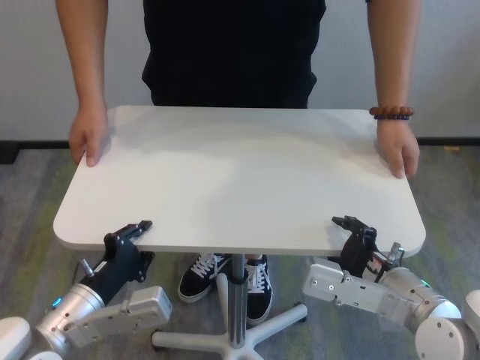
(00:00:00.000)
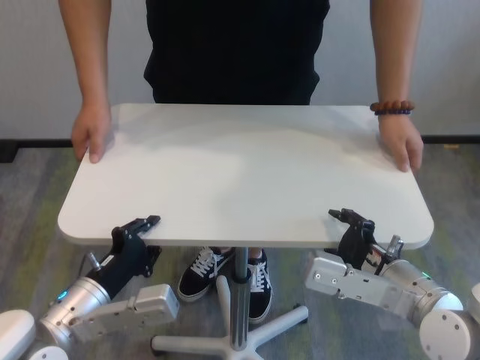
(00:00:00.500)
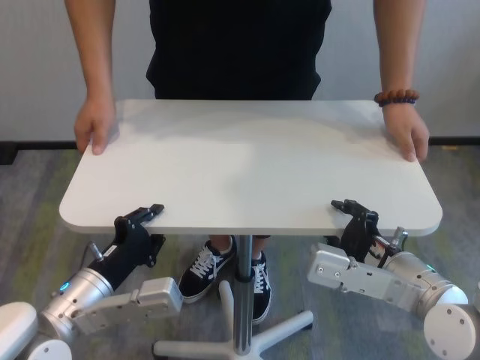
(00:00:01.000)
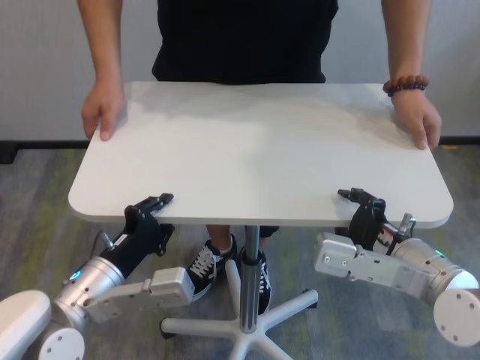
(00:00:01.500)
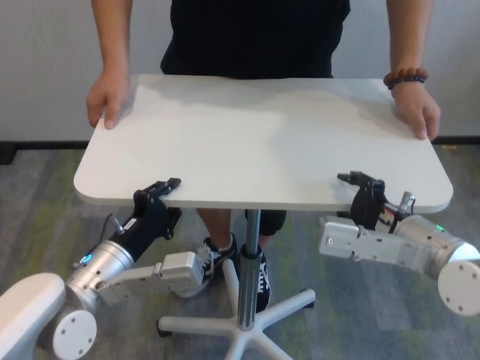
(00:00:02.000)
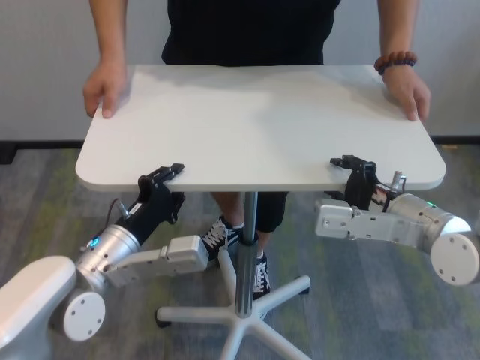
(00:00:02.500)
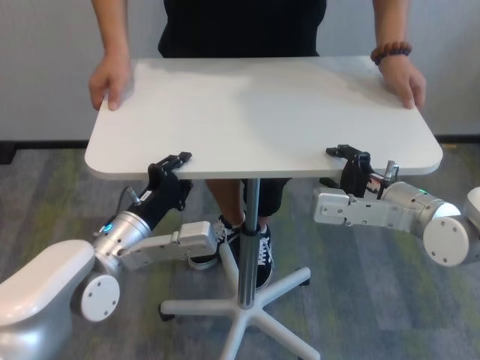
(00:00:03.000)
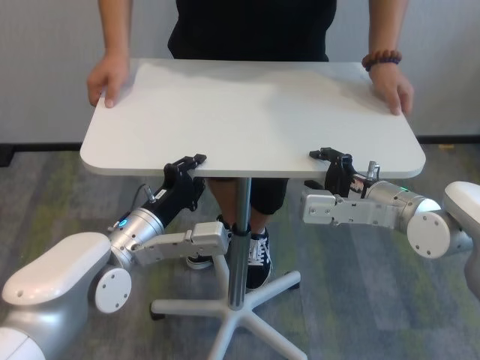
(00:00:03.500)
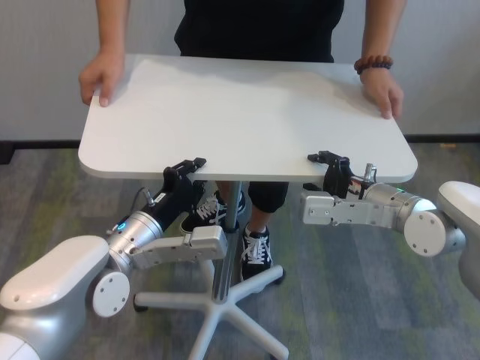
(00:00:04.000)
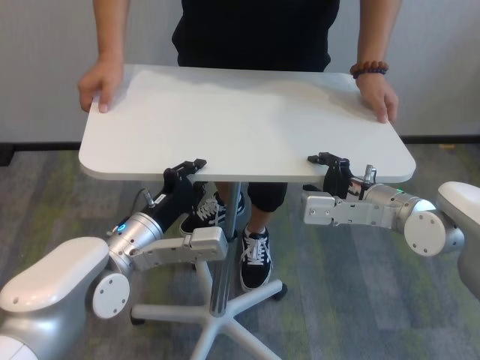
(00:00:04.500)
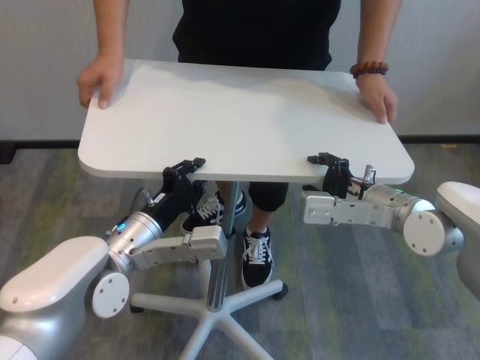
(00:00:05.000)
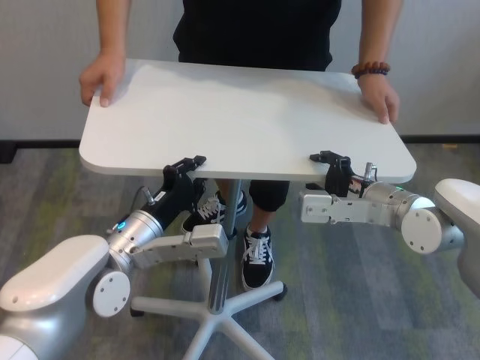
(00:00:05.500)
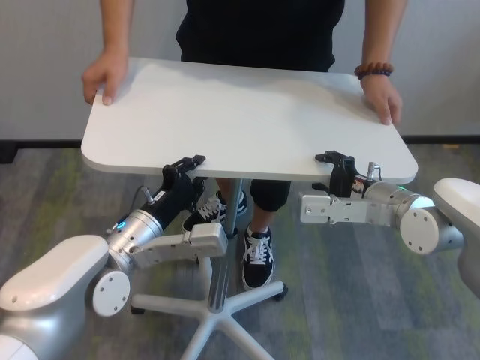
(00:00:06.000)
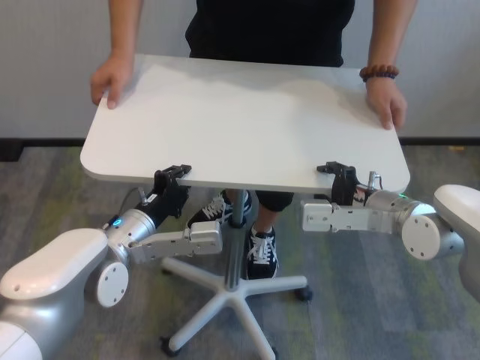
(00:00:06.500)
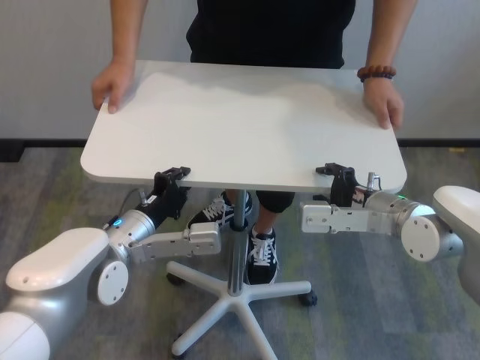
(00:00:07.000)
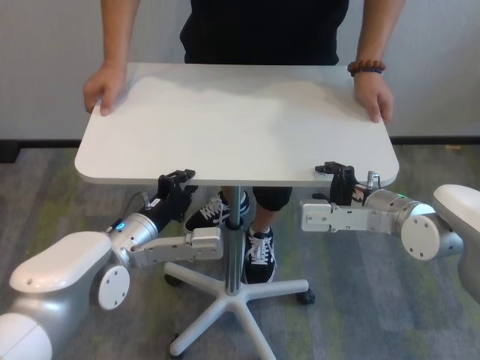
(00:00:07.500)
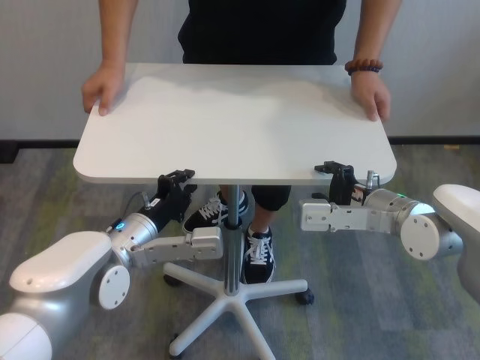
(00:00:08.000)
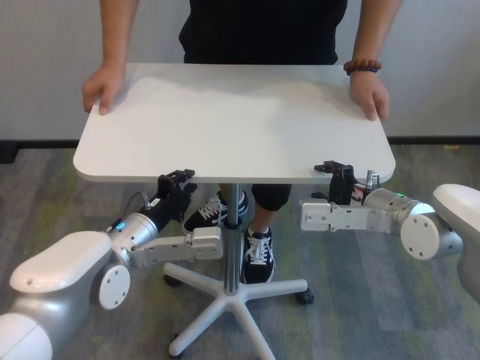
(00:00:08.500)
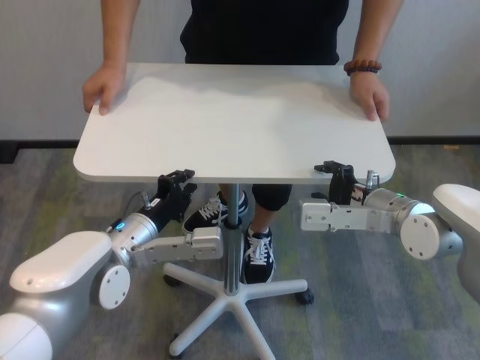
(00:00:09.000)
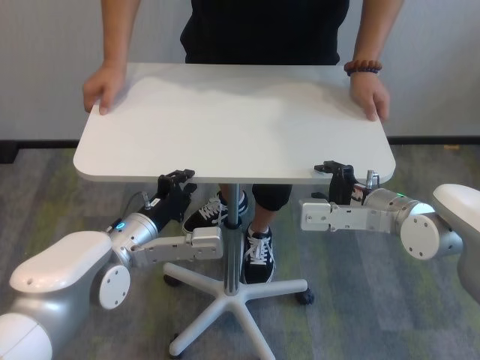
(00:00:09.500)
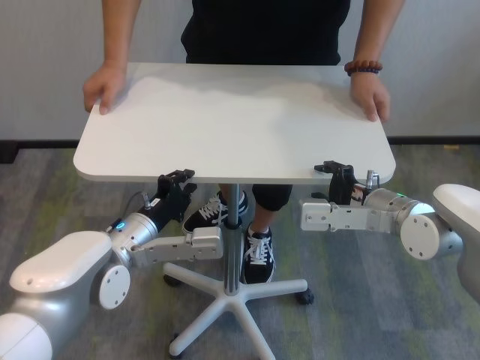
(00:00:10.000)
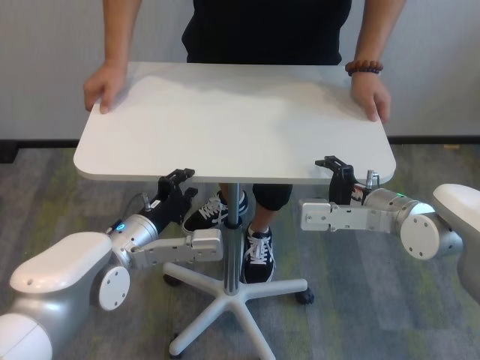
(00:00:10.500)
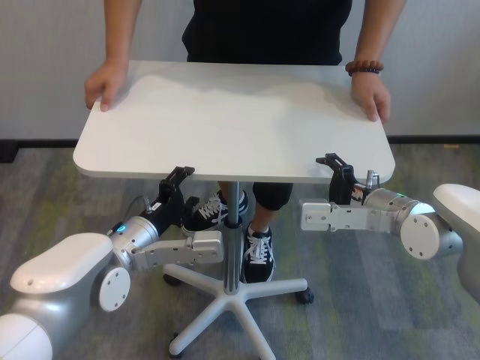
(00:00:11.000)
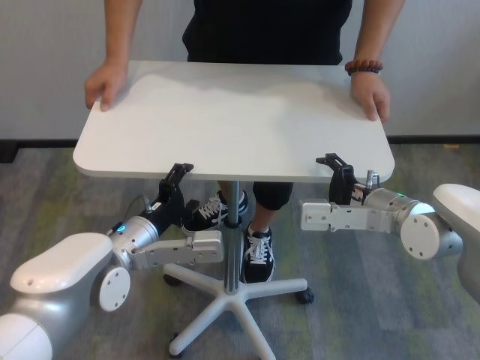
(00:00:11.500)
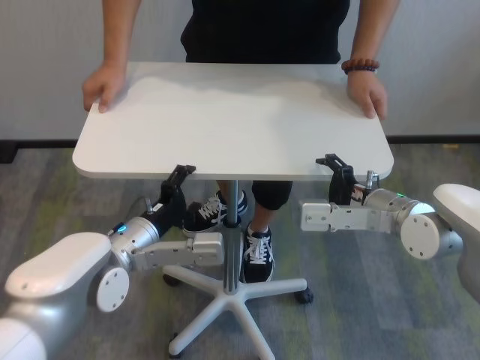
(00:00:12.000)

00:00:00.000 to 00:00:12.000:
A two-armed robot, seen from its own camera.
Task of the whole recording: human machine collaborative table moving.
Step, 00:00:00.000 to 00:00:11.000: Move the table forward with both grippers.
